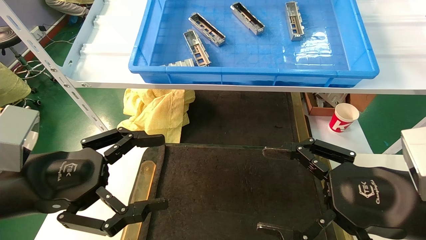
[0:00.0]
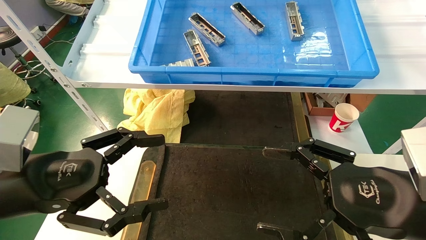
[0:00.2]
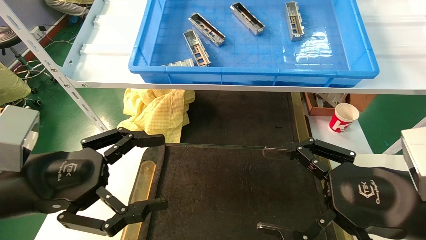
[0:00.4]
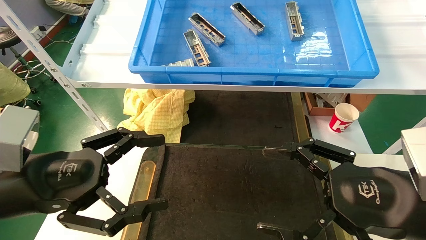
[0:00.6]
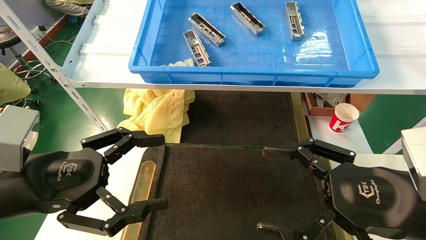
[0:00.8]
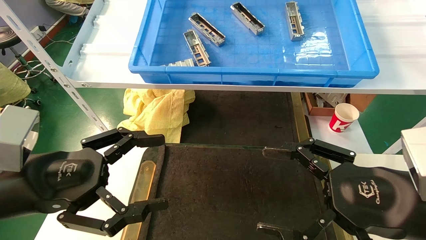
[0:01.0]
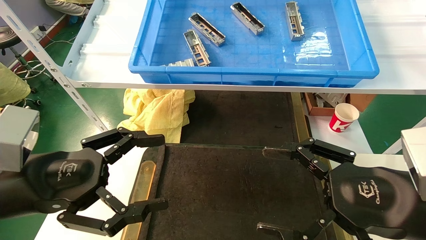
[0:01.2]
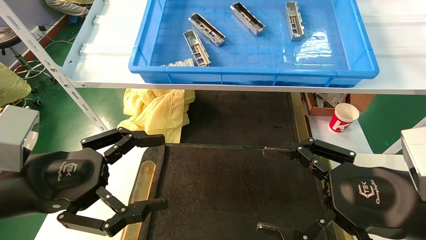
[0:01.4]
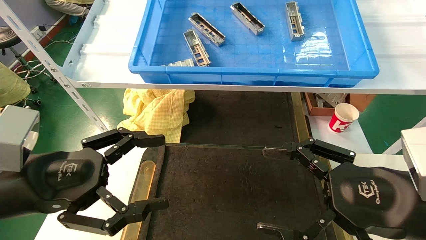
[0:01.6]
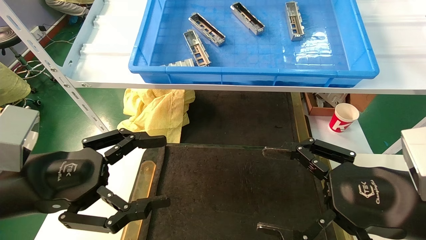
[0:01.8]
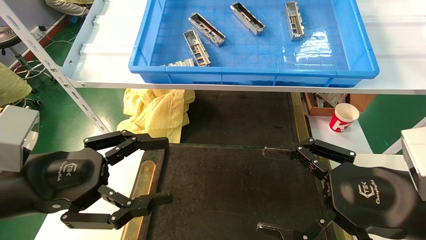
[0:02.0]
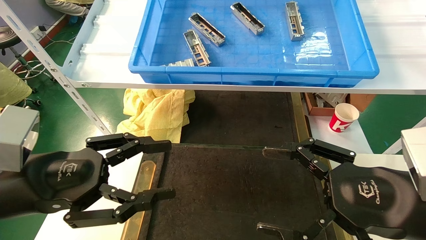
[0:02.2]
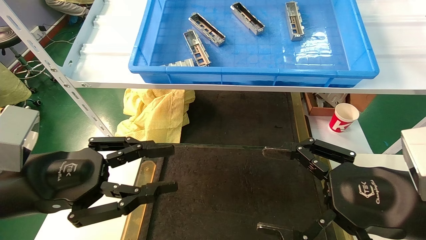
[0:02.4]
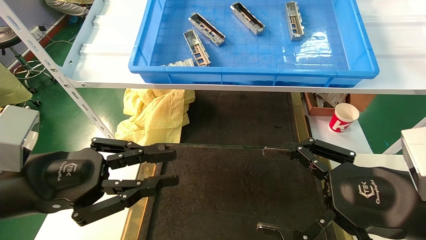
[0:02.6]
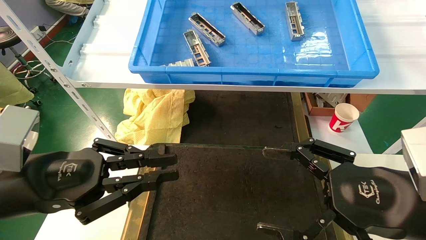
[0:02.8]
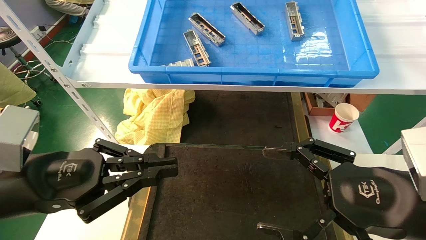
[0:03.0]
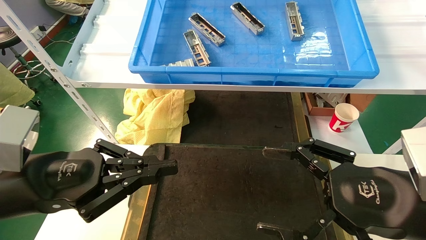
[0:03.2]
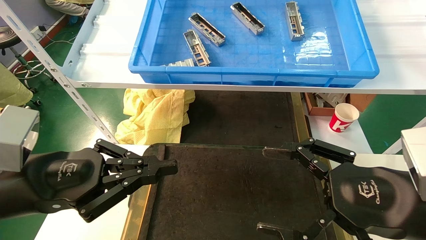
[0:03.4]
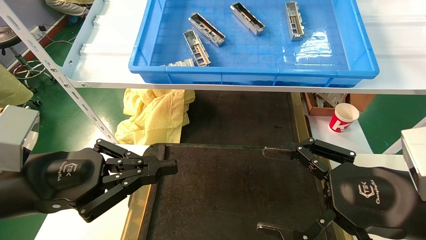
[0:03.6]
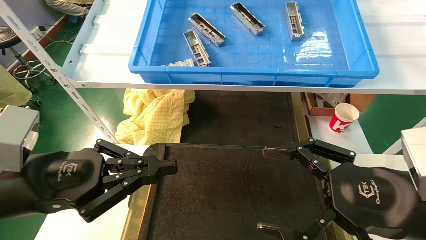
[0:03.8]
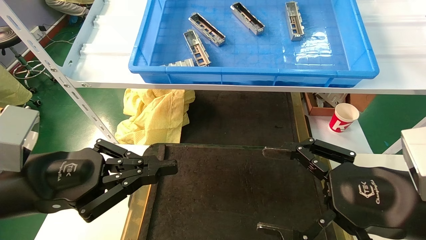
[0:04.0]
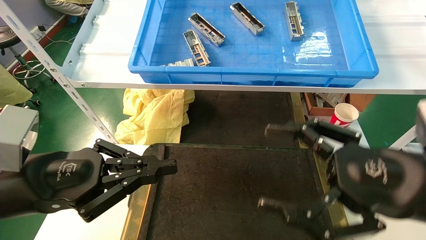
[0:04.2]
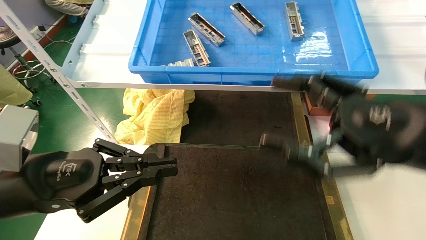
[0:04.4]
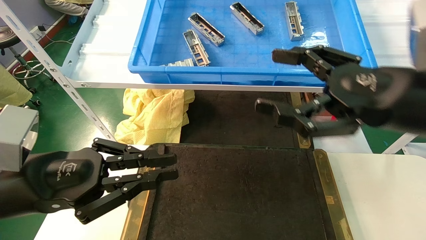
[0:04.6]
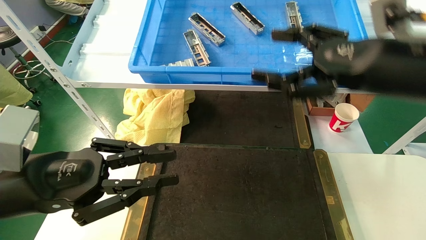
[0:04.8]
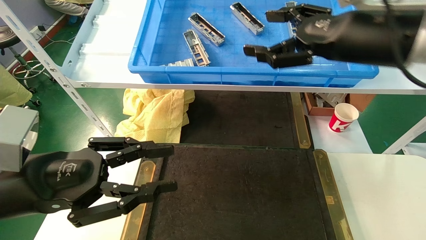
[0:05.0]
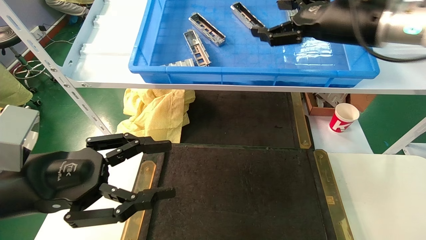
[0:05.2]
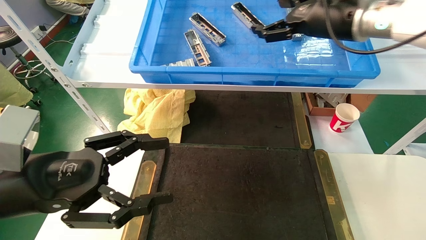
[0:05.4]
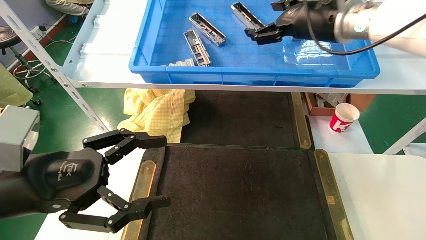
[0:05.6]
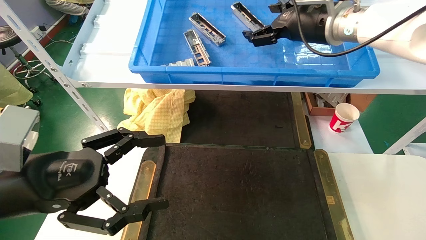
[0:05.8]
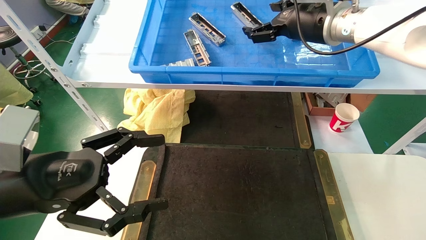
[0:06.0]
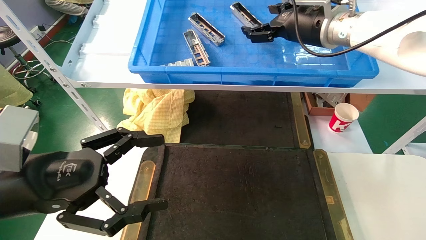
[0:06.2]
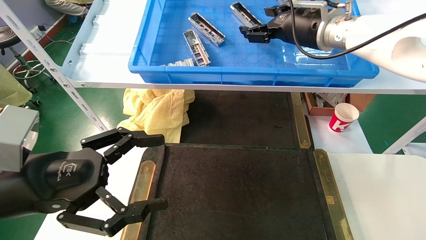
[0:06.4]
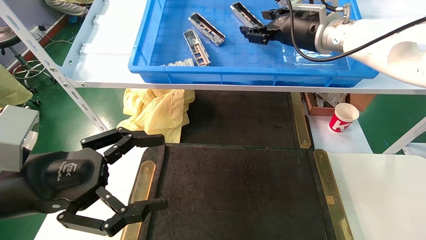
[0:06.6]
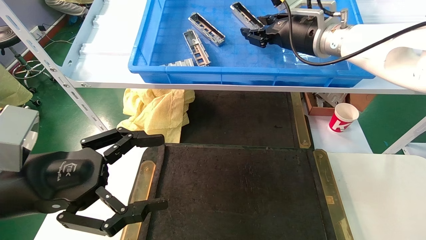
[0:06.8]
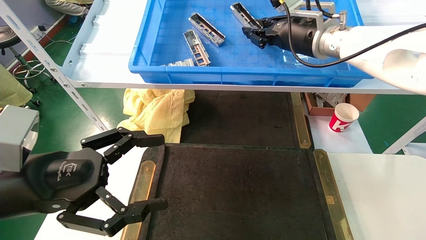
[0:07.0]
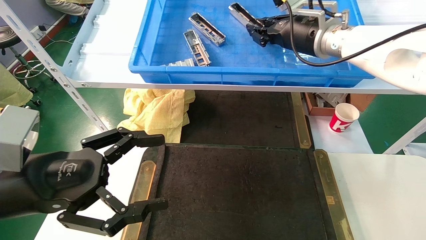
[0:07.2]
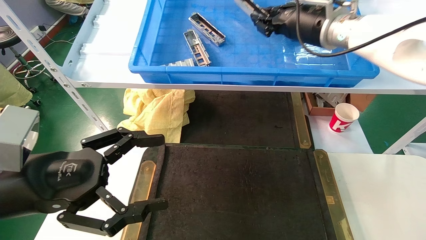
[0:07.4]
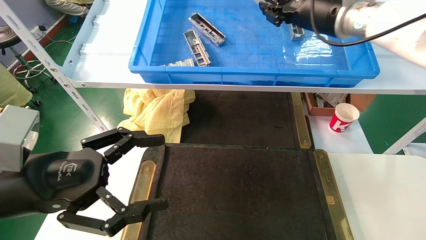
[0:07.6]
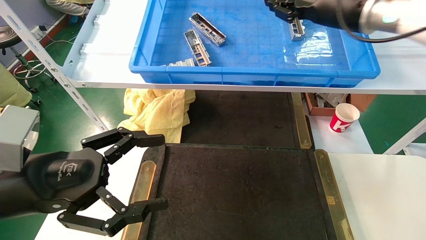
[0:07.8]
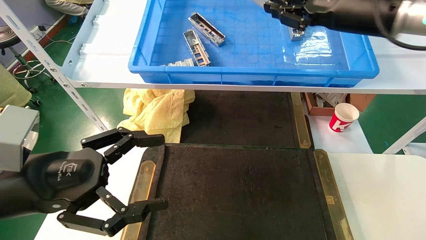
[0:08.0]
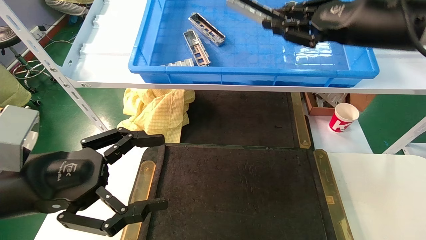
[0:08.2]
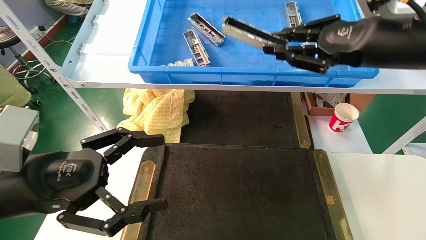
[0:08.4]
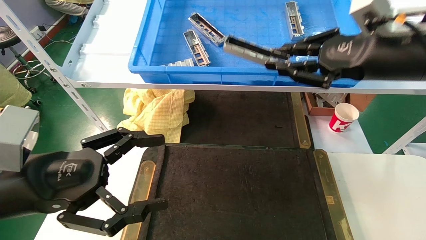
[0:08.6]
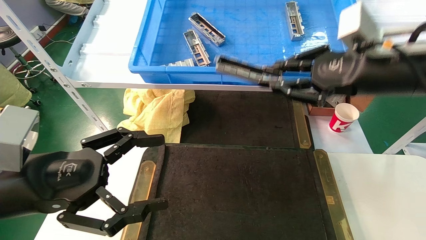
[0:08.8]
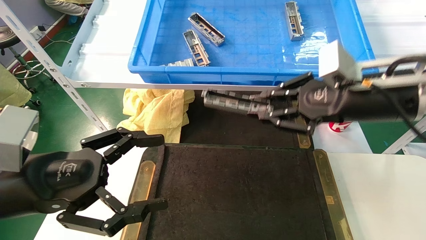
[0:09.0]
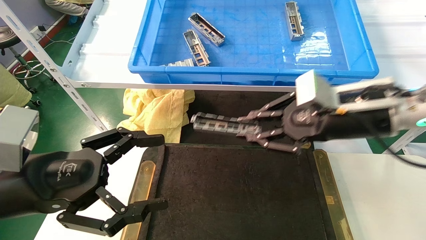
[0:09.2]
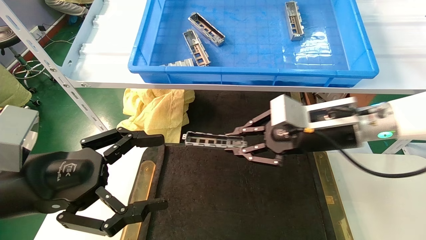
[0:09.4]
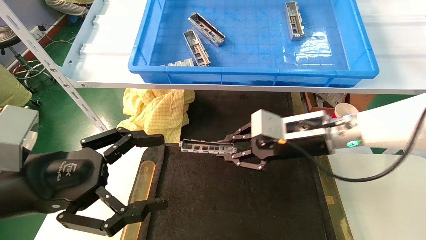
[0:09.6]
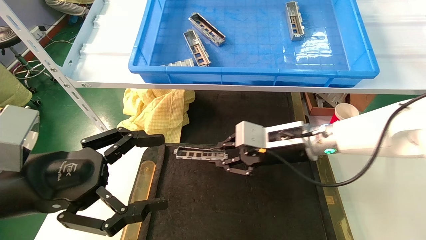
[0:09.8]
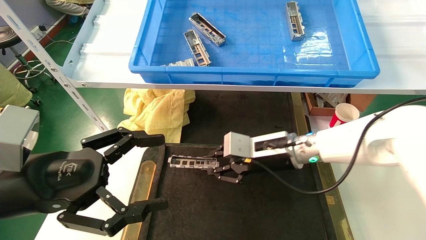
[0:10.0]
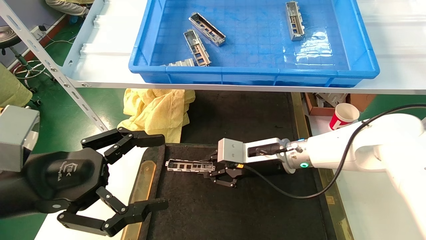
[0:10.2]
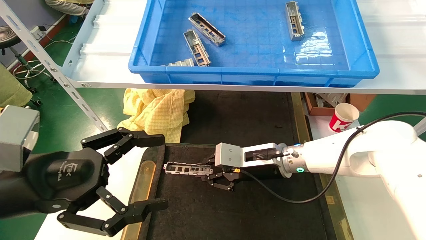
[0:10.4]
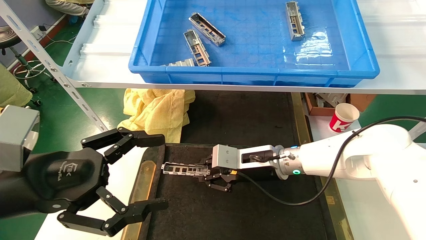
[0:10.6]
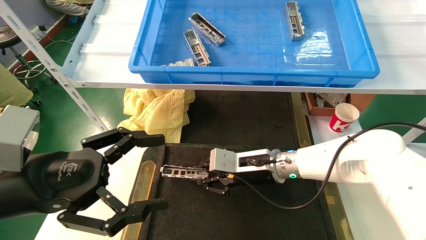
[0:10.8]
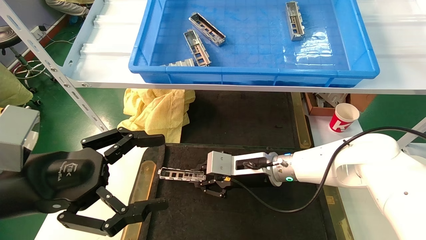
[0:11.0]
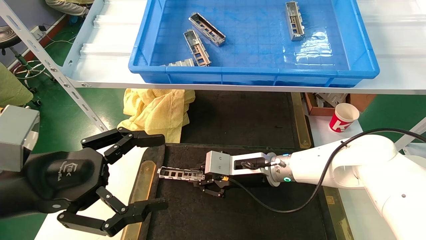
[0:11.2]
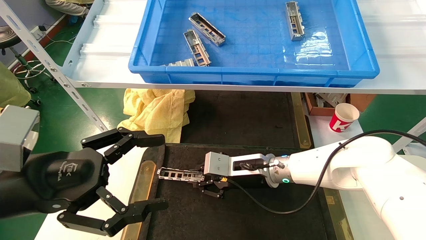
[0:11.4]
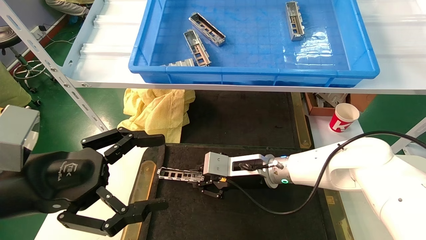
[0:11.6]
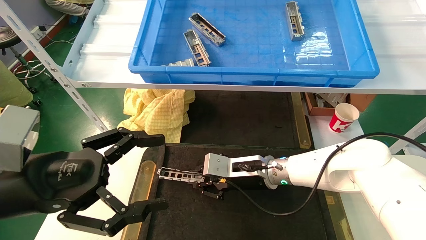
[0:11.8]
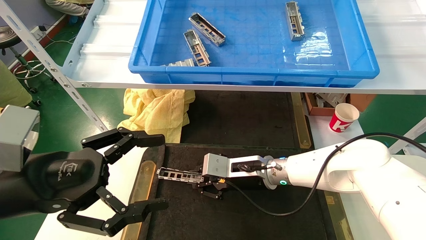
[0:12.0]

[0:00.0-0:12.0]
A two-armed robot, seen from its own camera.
Task of the whole recording: grasp the part and place them on the black container.
Step, 0:04.6 to 0:07.6: Pick up and lift the front USB bracket from the feeding area.
0:00.0 to 0:01.6: The two grippers keep their place.
0:01.6 to 0:03.0: The left gripper closes.
0:03.0 to 0:04.4: The right gripper is displaced upward by some 5 cm.
0:04.4 to 0:06.0: The left gripper opens its fingers; the right gripper goes some 25 cm forward and upward.
0:06.0 to 0:07.6: The right gripper closes.
0:07.6 to 0:09.0: The right gripper heads downward and backward, covering some 15 cm.
0:09.0 to 0:10.4: The right gripper goes roughly 25 cm downward, to the left and forward.
0:10.4 to 0:12.0: The grippers stay close to where they were, moving slightly.

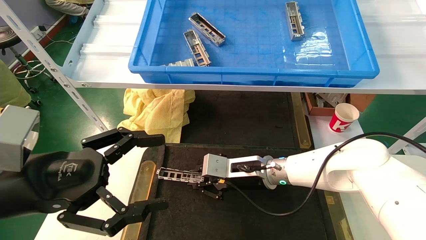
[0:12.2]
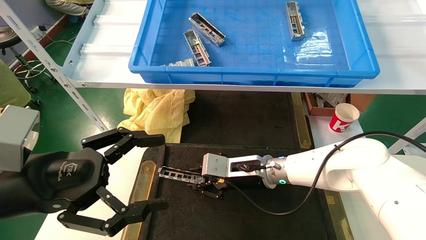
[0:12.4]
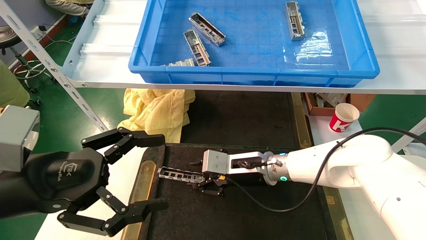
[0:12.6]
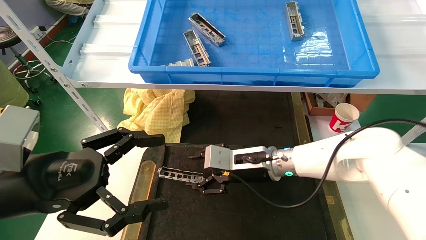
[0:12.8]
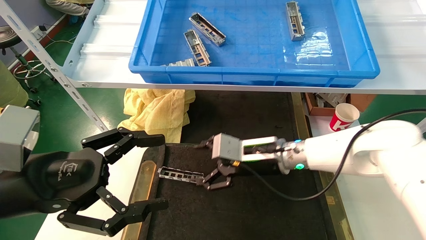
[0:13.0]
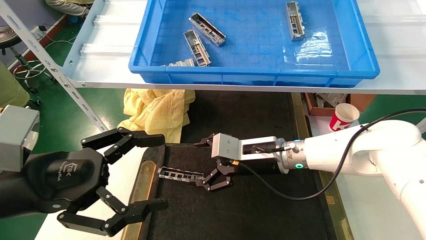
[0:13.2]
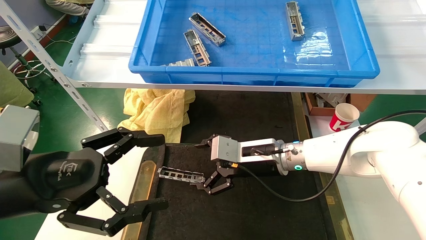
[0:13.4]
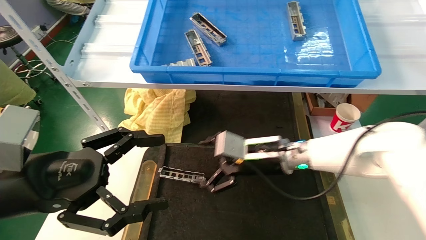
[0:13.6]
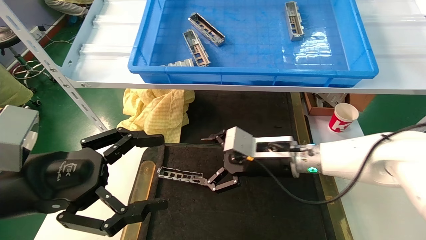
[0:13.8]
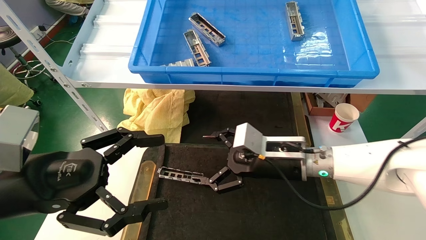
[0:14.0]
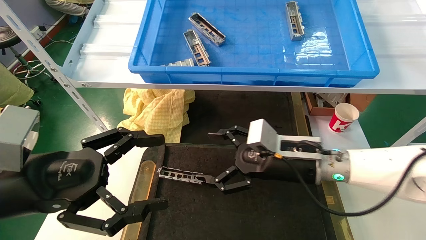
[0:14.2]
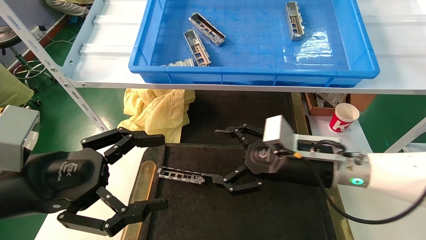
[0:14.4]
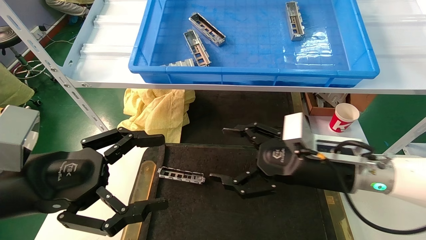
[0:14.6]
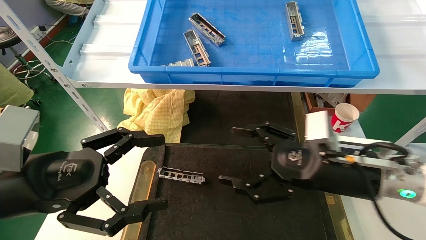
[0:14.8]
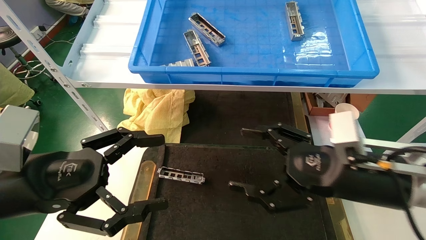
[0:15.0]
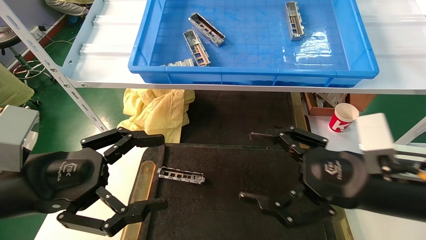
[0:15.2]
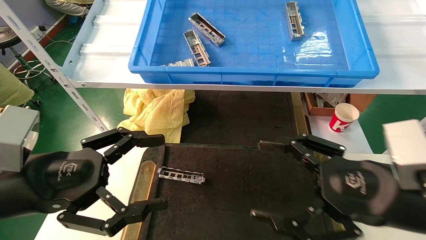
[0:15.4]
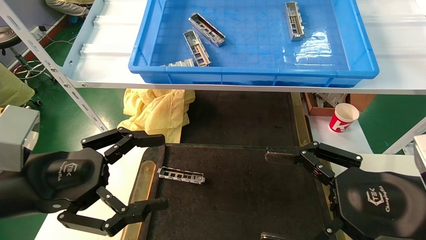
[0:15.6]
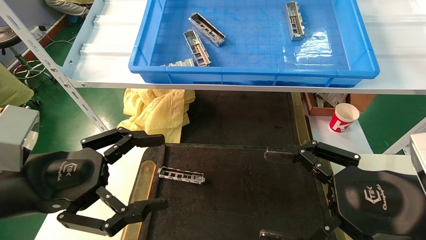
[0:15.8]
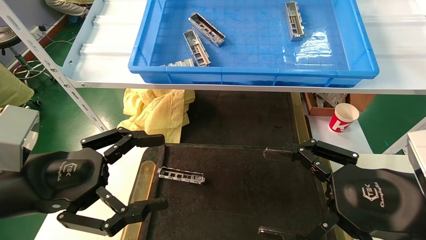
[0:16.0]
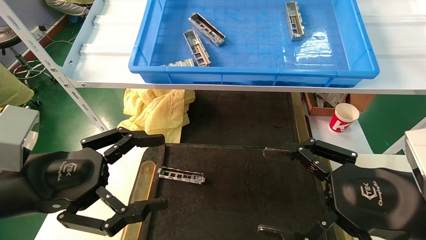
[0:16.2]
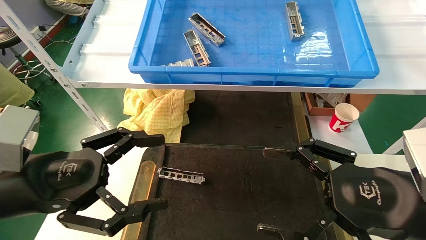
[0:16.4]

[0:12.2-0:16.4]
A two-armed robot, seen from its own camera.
Task of the whole recording: grasp the part and place them on the black container.
0:12.2 to 0:13.6: The right gripper shifts by roughly 5 cm, and opens its fingers.
0:13.6 to 0:15.0: The right gripper moves backward and to the right, roughly 20 cm.
0:15.0 to 0:16.4: The right gripper heads backward, covering approximately 5 cm.
